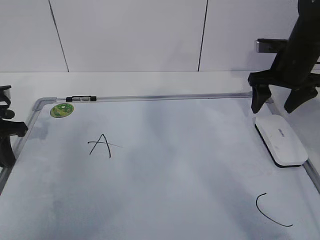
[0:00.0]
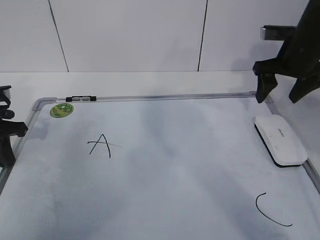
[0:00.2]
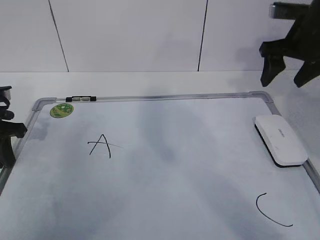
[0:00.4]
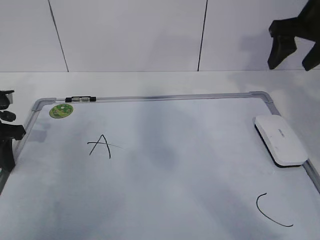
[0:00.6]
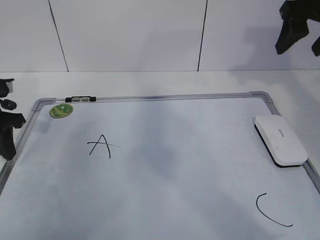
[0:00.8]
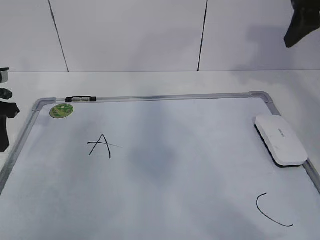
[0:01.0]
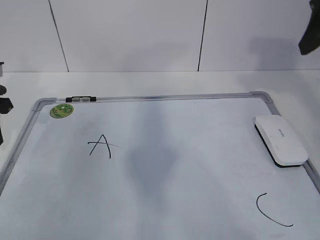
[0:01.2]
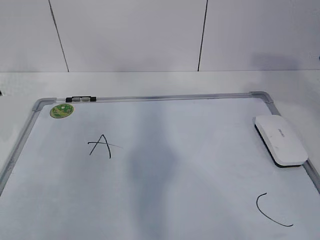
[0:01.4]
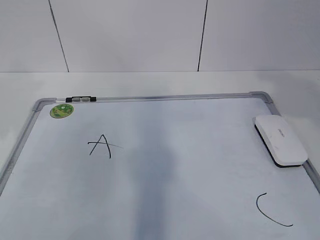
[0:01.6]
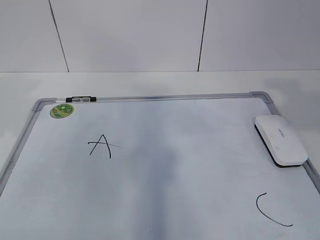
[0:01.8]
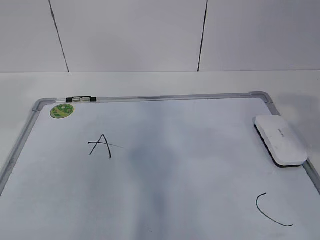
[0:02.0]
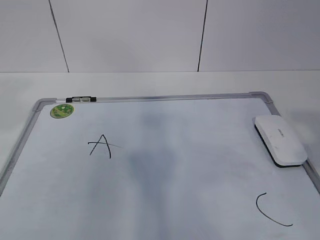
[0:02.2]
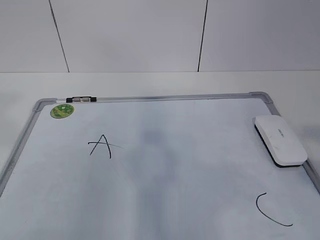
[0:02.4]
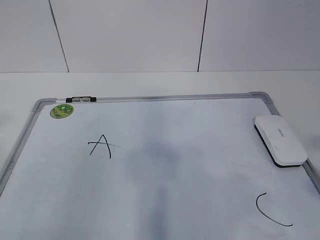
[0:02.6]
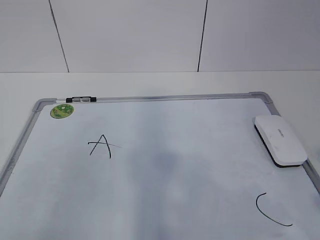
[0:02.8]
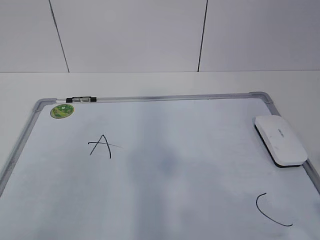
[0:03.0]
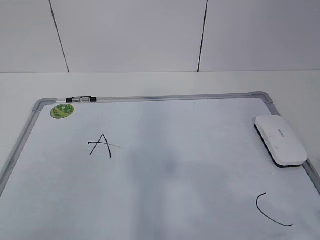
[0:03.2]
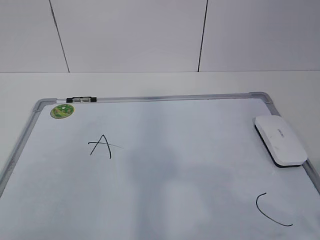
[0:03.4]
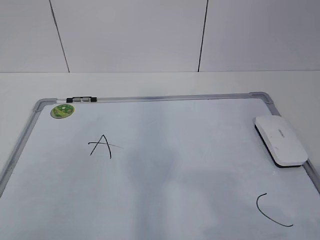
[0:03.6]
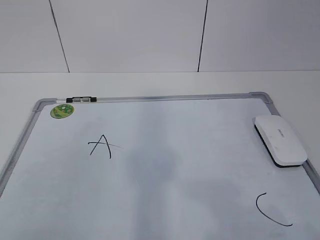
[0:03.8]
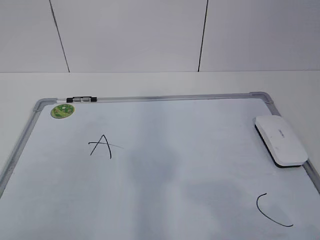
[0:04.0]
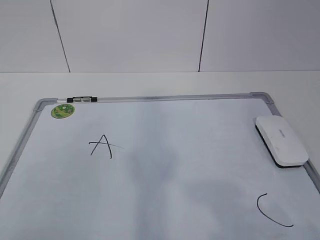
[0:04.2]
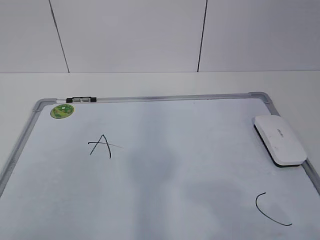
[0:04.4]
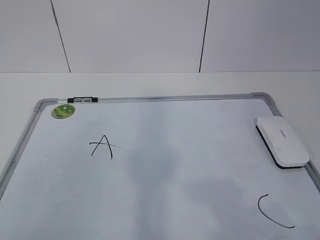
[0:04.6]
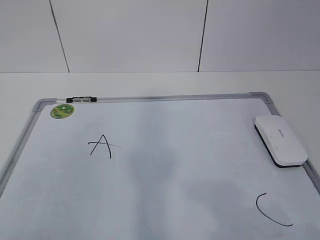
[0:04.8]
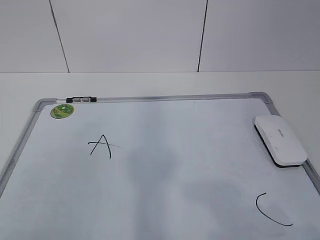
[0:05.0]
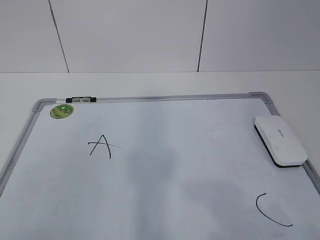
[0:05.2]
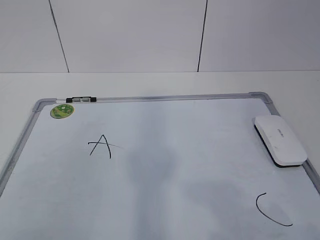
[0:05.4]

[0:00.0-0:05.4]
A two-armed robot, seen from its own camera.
Task of the whole recording: pick up the eraser on the blackboard and erase the letter "B".
0:00.0 to 0:01.4: The left gripper shifts about 10 cm upward, and opens; the right gripper is displaced backward and upward by about 25 cm.
0:04.0 to 0:05.4: The two grippers keep their place.

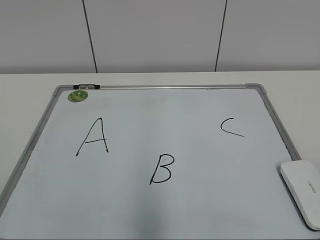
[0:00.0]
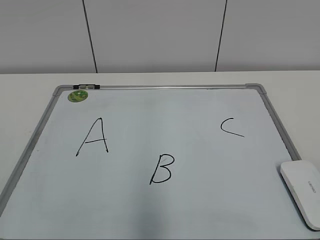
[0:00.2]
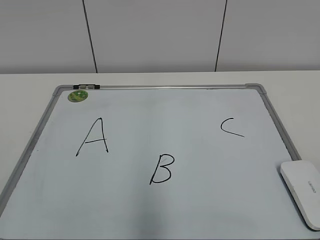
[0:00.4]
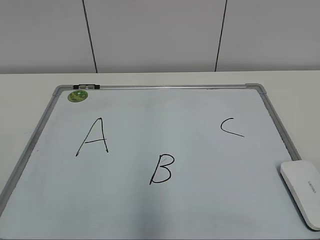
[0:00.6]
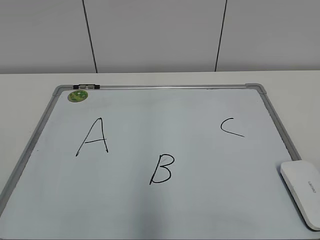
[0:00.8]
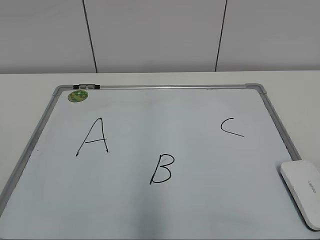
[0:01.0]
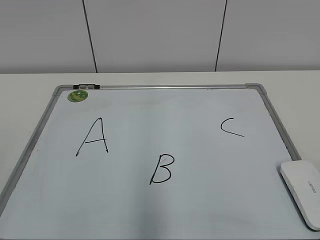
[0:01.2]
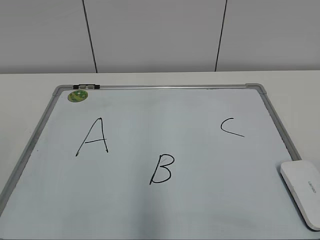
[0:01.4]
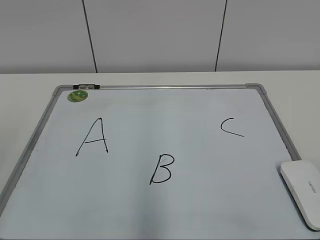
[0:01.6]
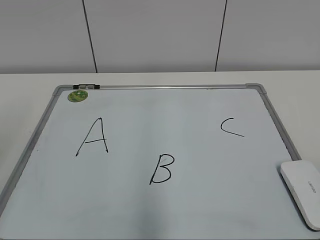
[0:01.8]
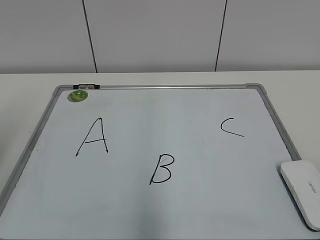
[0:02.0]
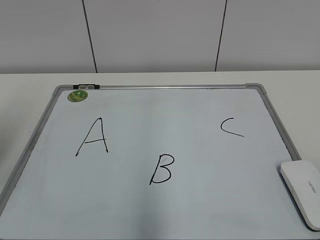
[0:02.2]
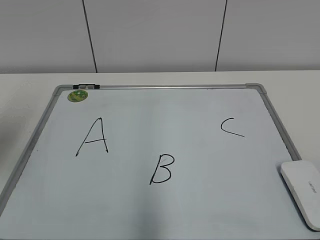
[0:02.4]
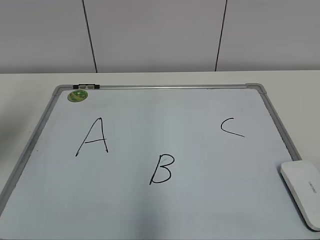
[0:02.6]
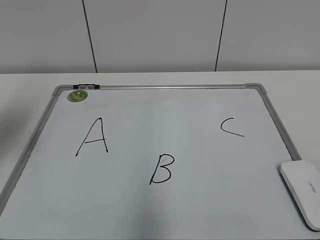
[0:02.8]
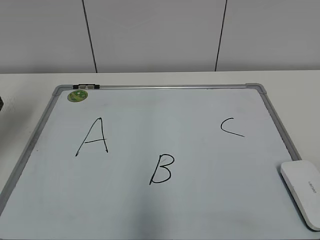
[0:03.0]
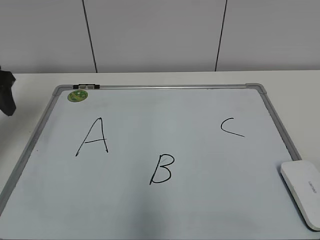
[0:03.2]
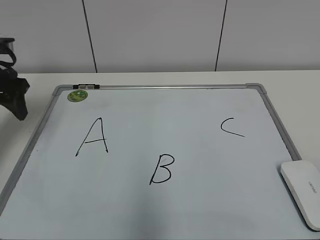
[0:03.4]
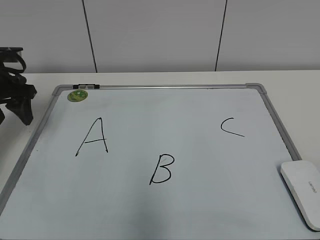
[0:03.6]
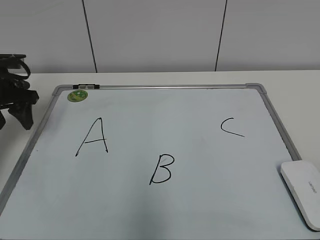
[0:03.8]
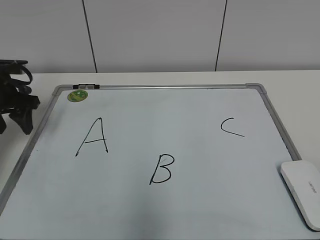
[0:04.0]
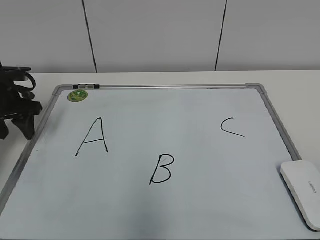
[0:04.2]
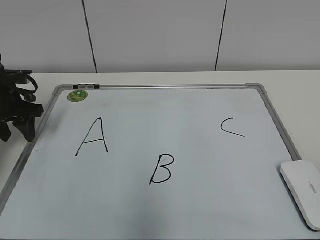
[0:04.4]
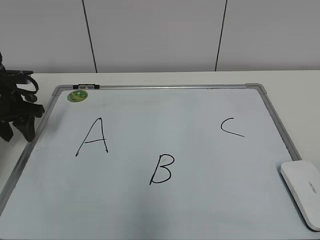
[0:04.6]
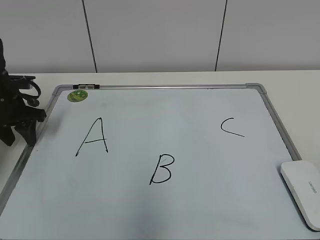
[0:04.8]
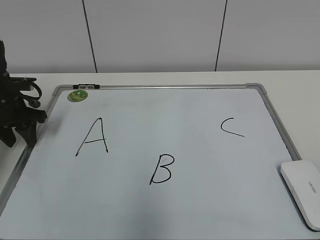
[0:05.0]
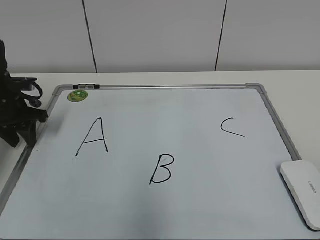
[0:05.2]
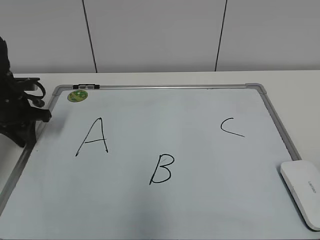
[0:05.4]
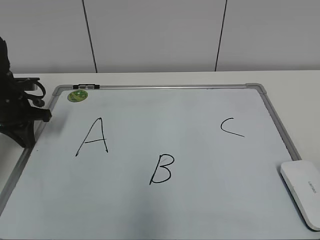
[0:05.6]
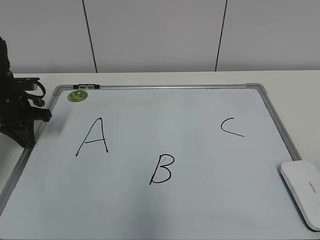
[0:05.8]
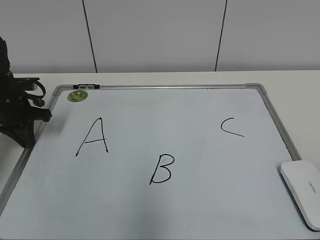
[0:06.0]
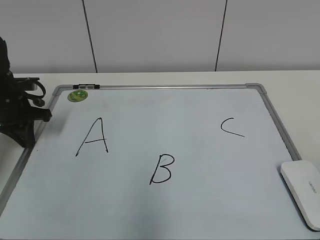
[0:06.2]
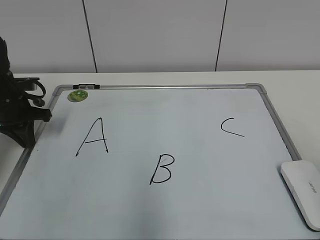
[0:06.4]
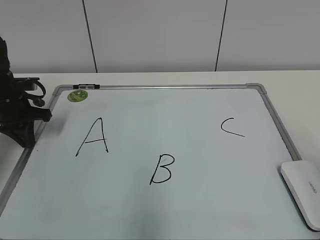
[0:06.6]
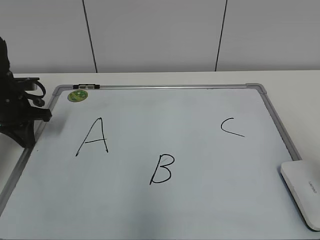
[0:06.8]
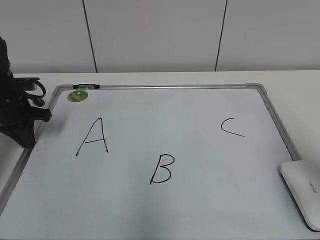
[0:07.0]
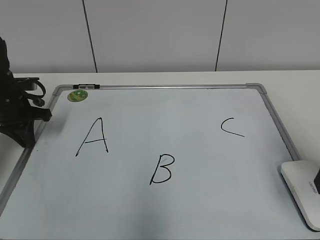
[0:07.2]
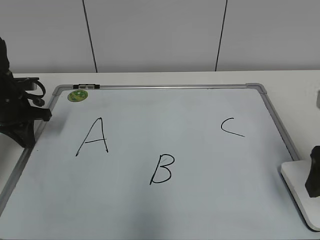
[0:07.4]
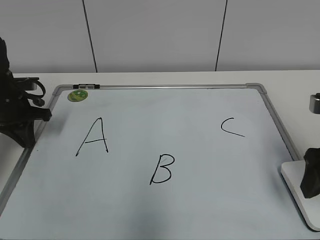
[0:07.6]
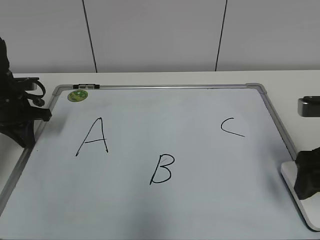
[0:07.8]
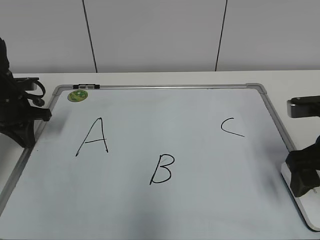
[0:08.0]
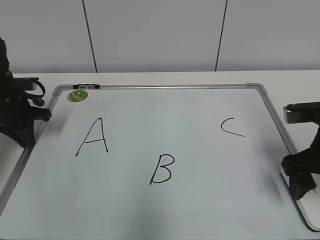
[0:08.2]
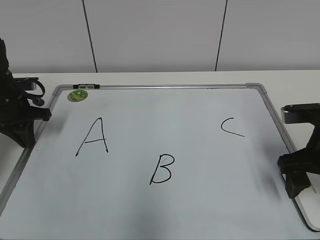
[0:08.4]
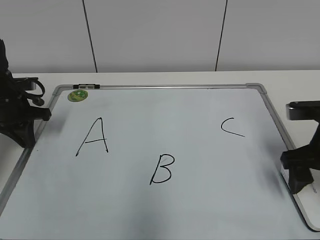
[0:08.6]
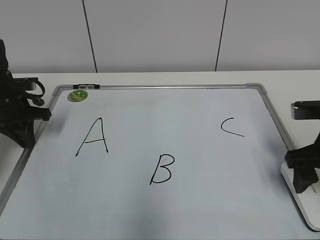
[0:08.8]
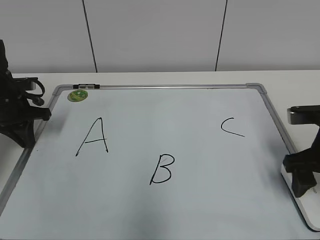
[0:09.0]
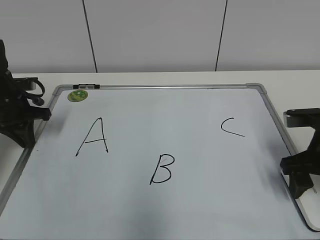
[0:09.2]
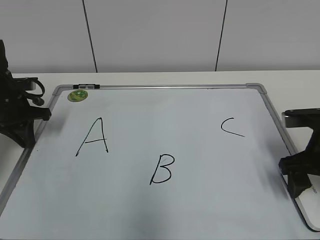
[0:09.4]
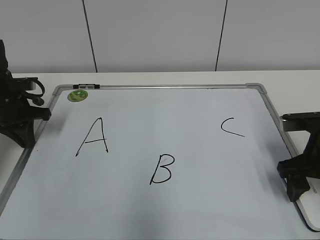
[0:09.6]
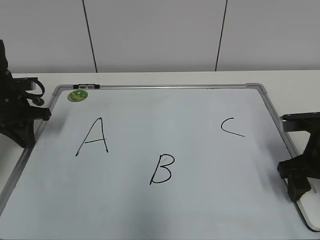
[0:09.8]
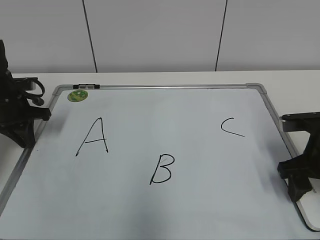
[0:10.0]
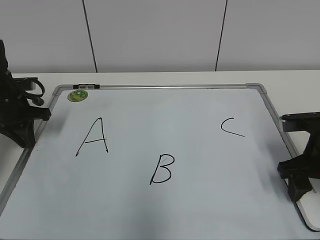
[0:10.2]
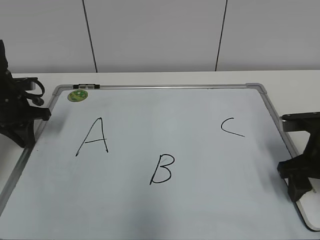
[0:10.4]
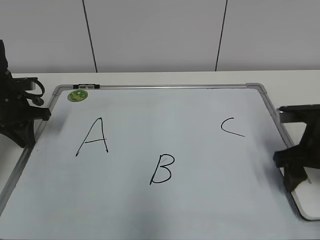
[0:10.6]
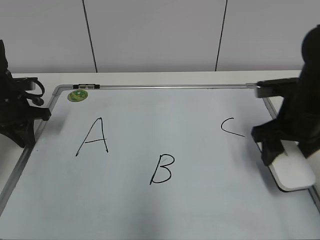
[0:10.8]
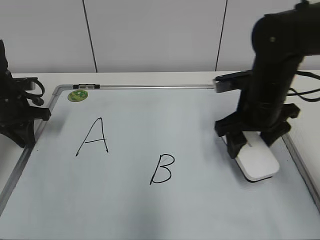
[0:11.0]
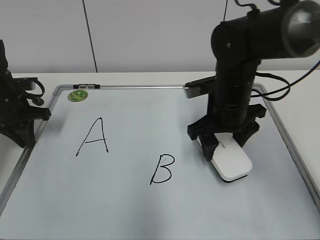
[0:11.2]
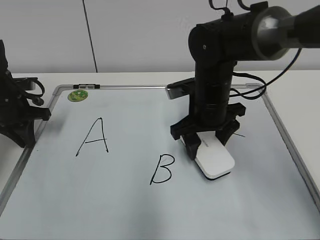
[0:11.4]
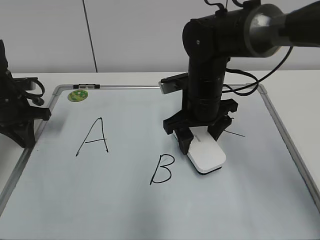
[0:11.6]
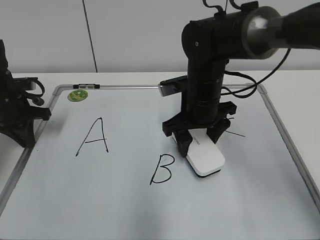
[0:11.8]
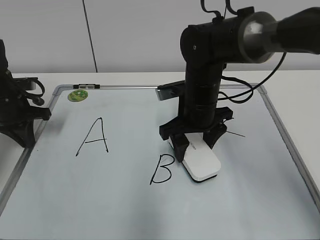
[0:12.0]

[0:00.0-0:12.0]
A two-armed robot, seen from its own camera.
Task of the whole recording: pick up the eraser on the blackboard and erase the letter "B".
Step, 0:00.0 to 0:05.4: Hold the drawing board steady with your left hand.
Step, 0:05.6 to 0:10.2: Grab the eraser with your right hand.
0:01.6 to 0:03.0: The left gripper moves forward, some 25 cm.
0:03.0 to 0:04.4: The left gripper goes about 15 cm downward and forward.
0:04.4 to 0:06.0: The left gripper closes up.
0:06.0 to 0:07.6: The right gripper heads forward, covering about 25 cm, and opens its fingers.
0:07.6 to 0:09.0: The right gripper shifts by some 5 cm, and closes its fingers.
0:09.0 to 0:10.4: The right gripper closes up.
0:10.4 to 0:12.0: The right gripper goes approximately 20 cm to the left and forward.

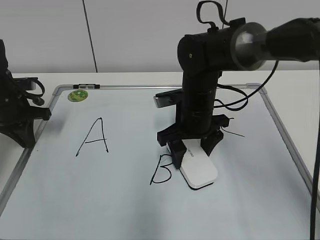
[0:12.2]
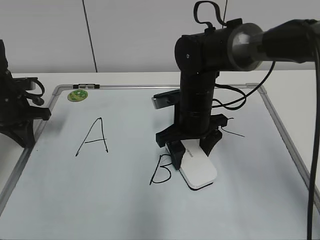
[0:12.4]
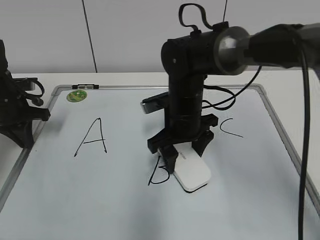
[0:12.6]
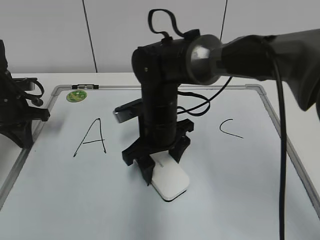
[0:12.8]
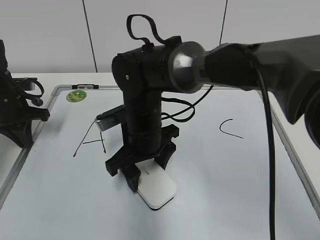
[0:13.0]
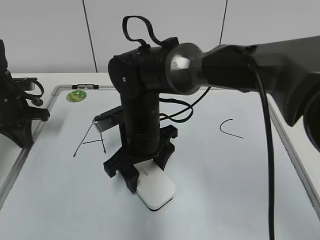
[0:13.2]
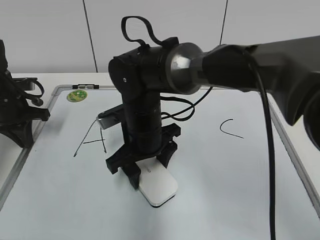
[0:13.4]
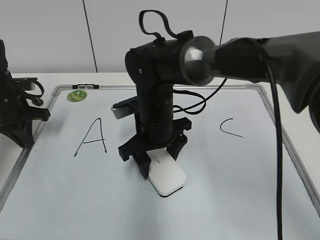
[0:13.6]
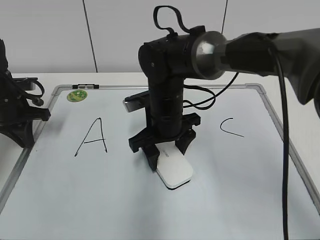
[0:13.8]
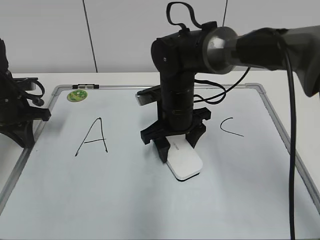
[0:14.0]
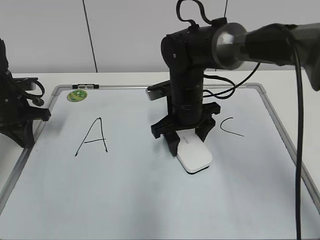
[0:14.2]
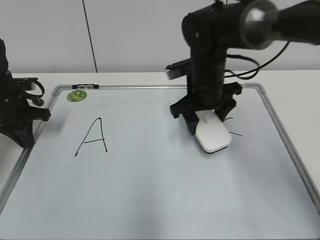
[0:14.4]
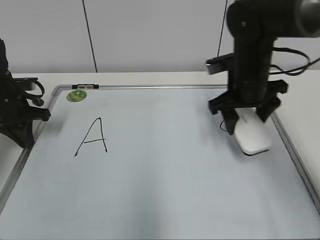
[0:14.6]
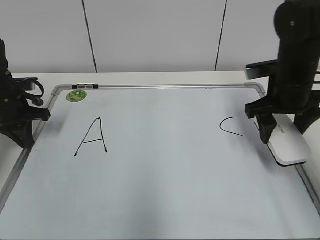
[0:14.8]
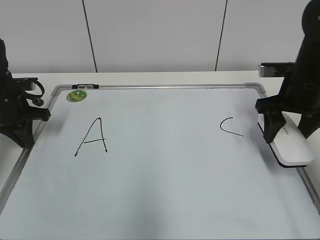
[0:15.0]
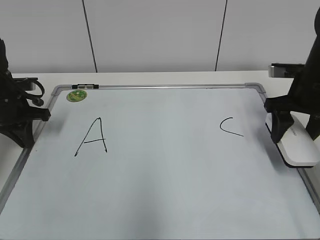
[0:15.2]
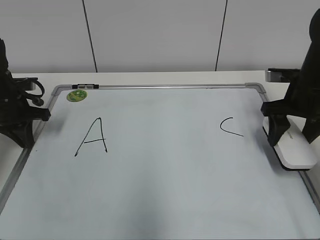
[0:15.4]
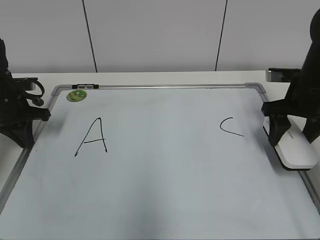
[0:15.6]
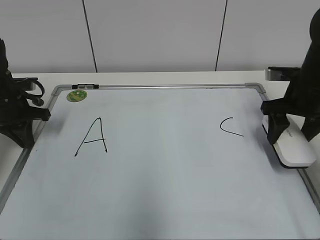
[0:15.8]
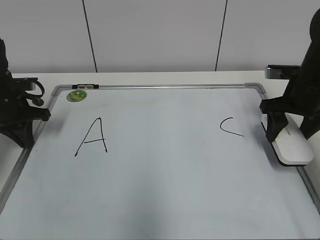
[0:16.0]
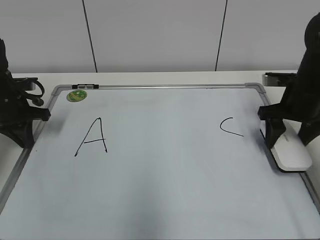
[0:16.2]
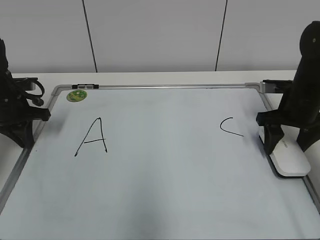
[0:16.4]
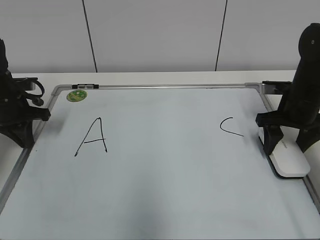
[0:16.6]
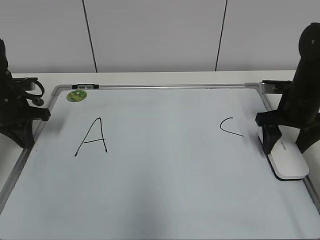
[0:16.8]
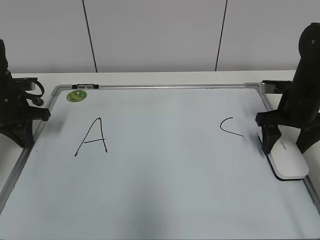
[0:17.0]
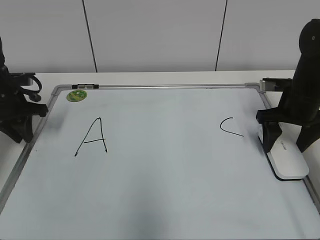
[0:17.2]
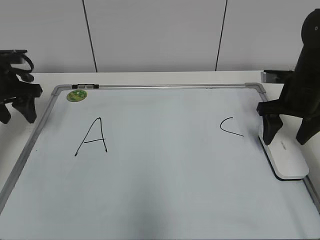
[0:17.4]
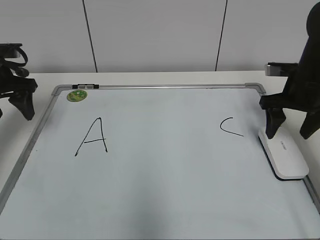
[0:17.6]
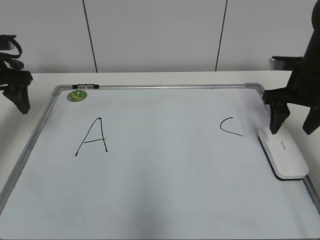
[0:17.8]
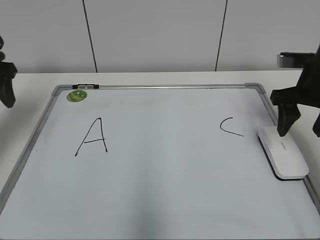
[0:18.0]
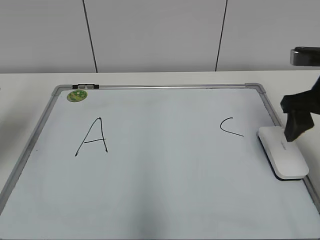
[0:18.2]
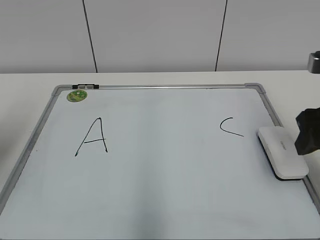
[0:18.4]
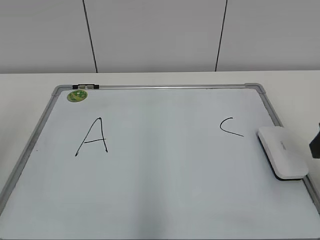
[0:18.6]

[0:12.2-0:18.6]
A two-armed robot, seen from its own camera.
Task of the whole recording: pick up the eraser on the blackboard and erase the letter "B".
Step, 0:12.2 to 0:14.0: Erase the letter B with your right hand.
0:12.2 to 0:13.8: The right gripper travels to the left by some 5 cm.
0:13.8 to 0:15.4: The right gripper travels to the right by about 25 cm.
0:15.4 to 0:17.0: The right gripper opens up.
0:17.0 to 0:18.6: Both grippers travel together backward and upward, approximately 25 cm. The left gripper opens up. Meanwhile the right gripper closes.
